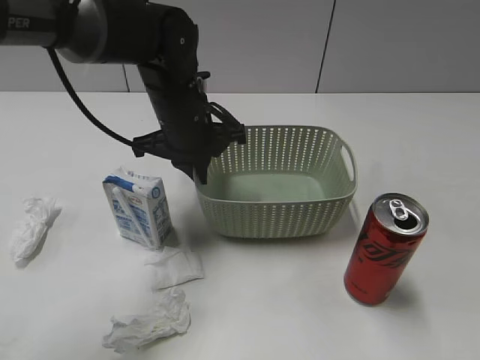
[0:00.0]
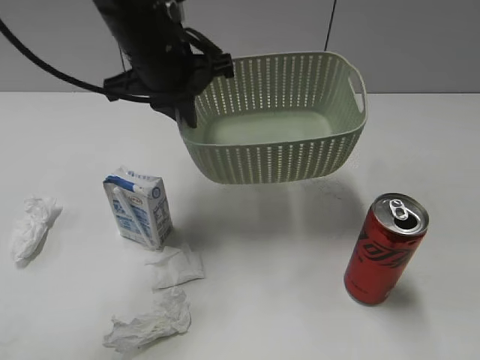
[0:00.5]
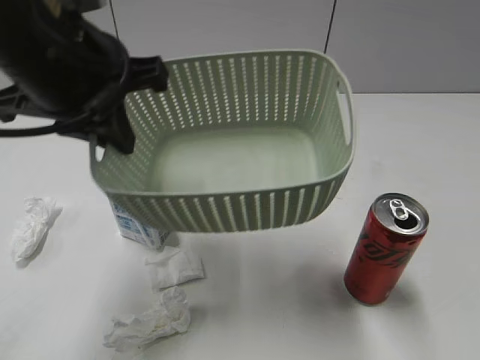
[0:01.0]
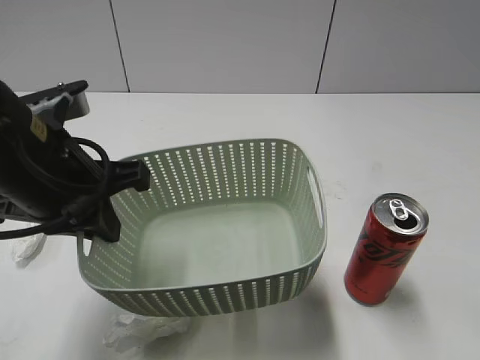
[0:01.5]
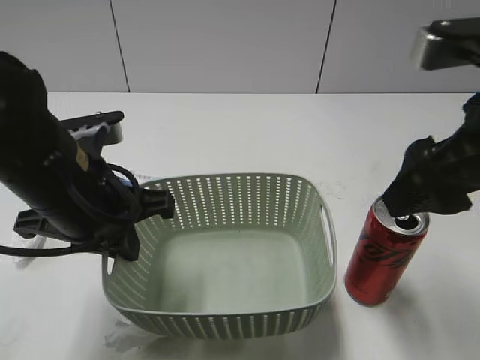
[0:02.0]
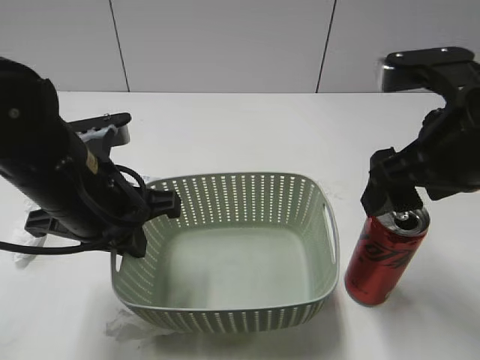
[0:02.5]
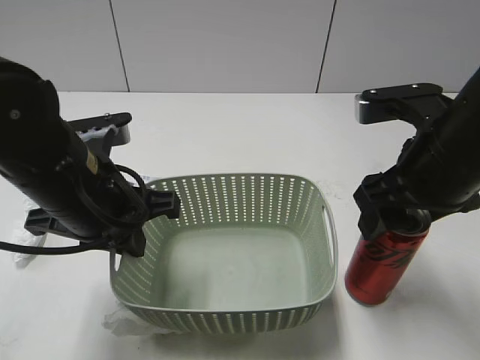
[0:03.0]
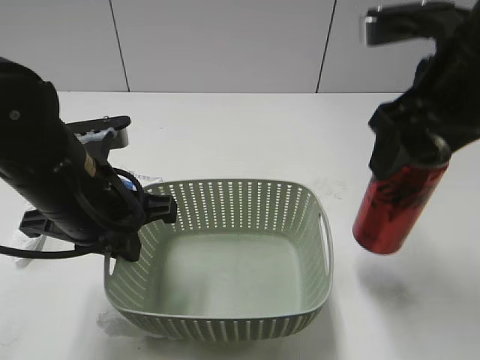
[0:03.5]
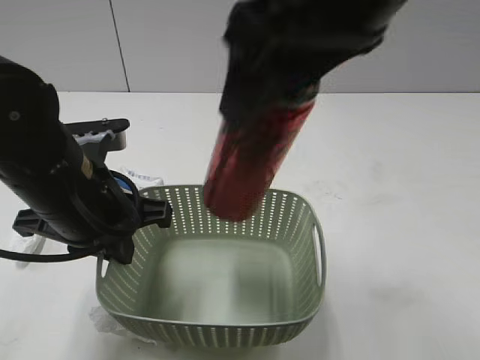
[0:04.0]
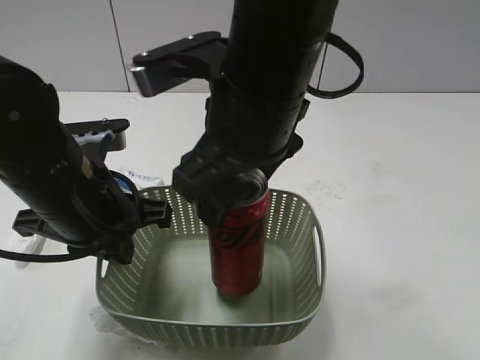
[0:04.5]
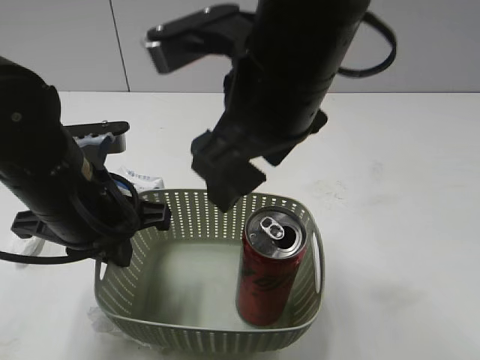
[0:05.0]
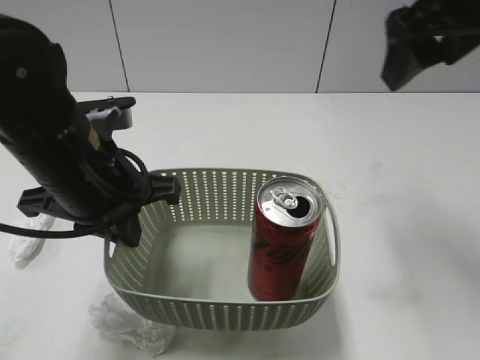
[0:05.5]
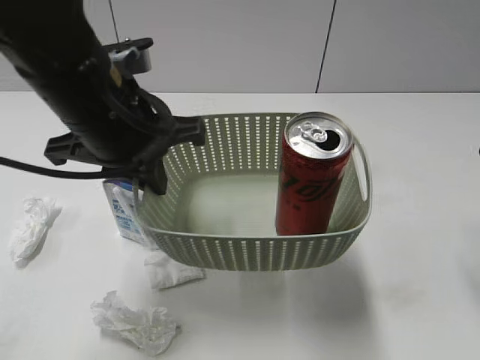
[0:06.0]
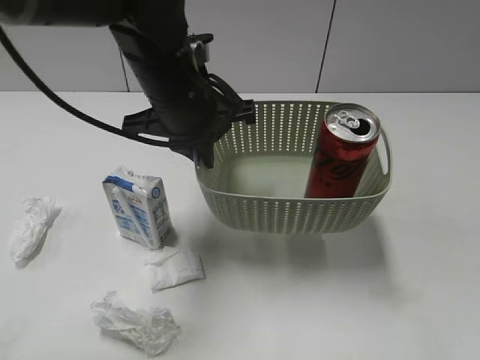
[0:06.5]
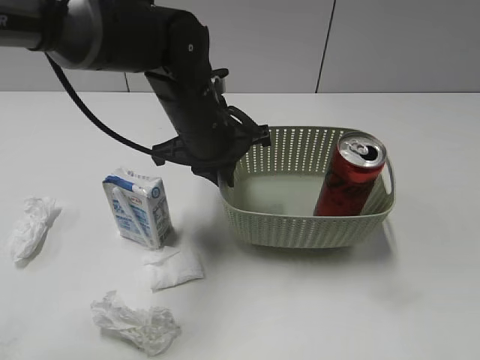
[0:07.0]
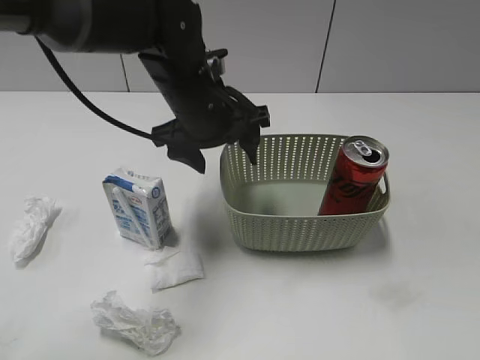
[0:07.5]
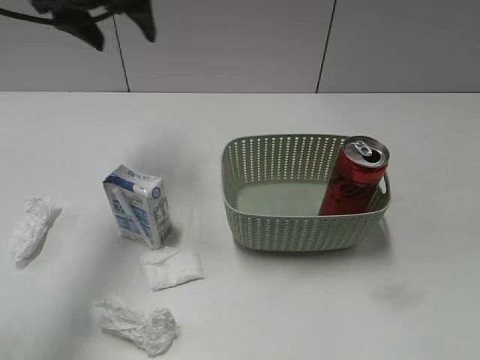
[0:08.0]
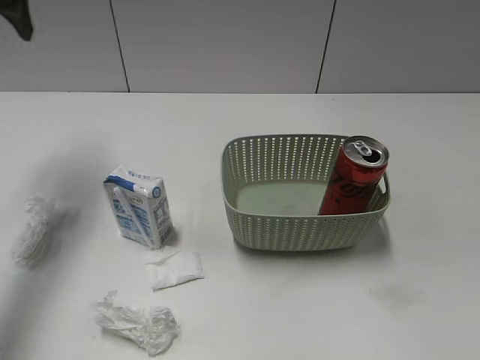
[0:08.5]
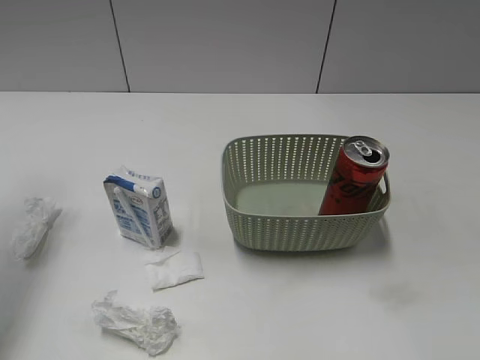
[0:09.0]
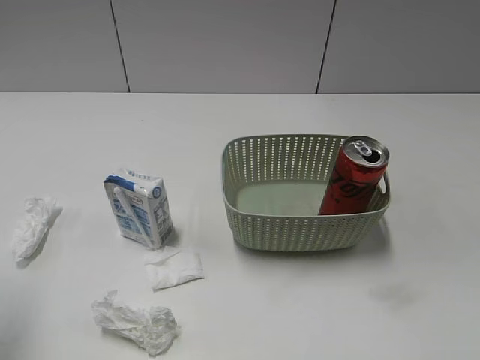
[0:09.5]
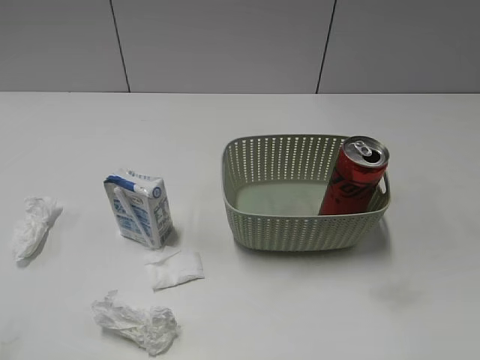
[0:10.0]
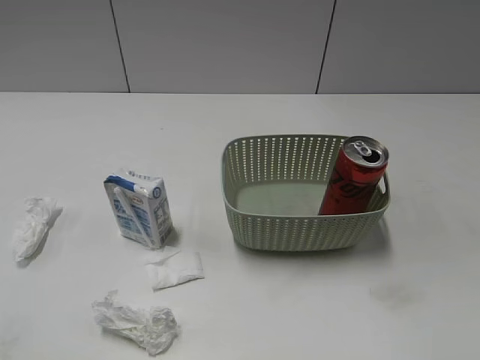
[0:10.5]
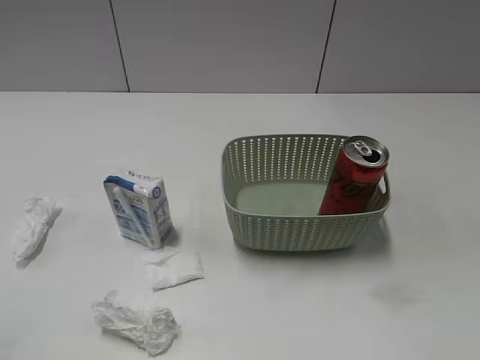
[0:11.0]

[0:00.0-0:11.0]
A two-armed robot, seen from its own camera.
Step, 0:02.0 to 0:03.0: Grasp the cola can with right gripper.
Step, 0:03.5 to 0:05.0: Place the cola can in the basket with right gripper.
Step, 0:05.5 to 0:07.5: Place the basket on the table with left gripper.
0:00.0 to 0:02.0: The left gripper travels backward and to the left by roughly 15 cm. The right gripper heads forward and to the left, covering approximately 20 cm, and opens.
0:02.0 to 0:03.5: The right gripper is displaced forward by about 5 cm, moves some 5 cm downward and comes back, and closes.
0:03.5 to 0:05.5: The right gripper goes to the left and returns, roughly 15 cm each way, and opens.
0:05.5 to 0:07.5: The left gripper goes some 15 cm forward and to the right, and opens up. Meanwhile the right gripper heads backward and to the right, covering about 30 cm.
0:07.5 to 0:09.0: The left gripper heads to the left and upward, covering about 30 cm.
0:09.0 to 0:11.0: The left gripper shifts about 30 cm backward.

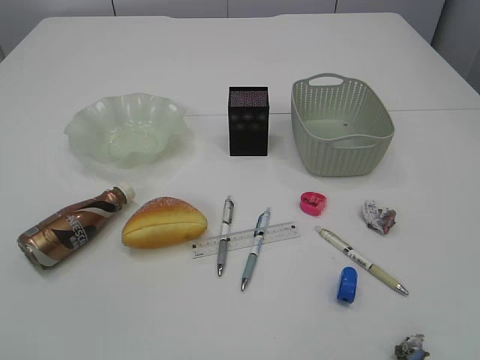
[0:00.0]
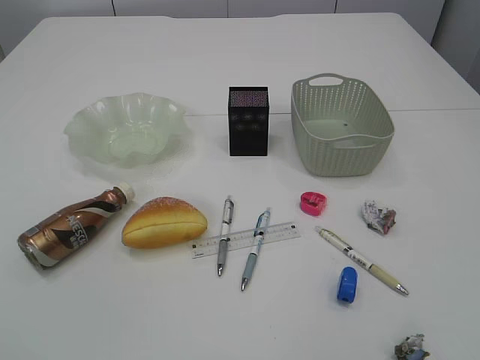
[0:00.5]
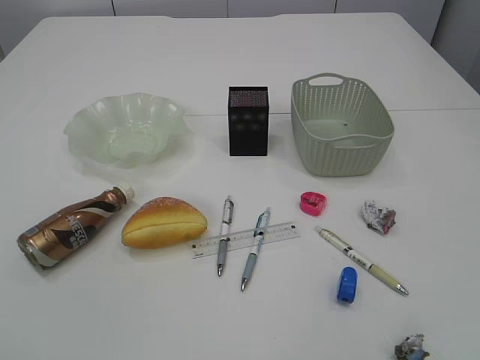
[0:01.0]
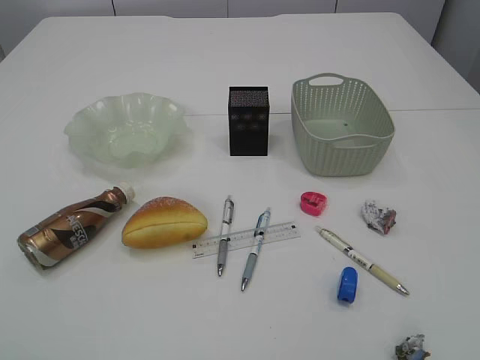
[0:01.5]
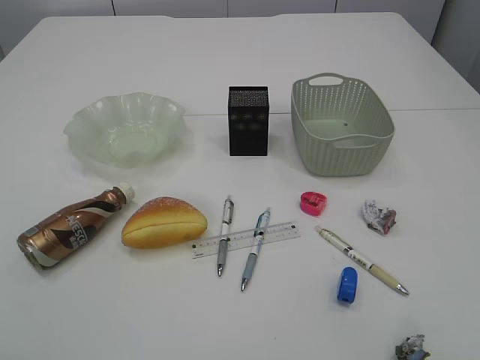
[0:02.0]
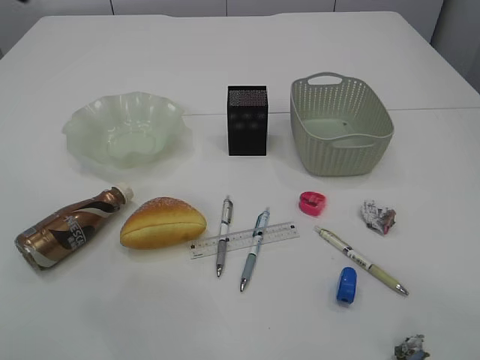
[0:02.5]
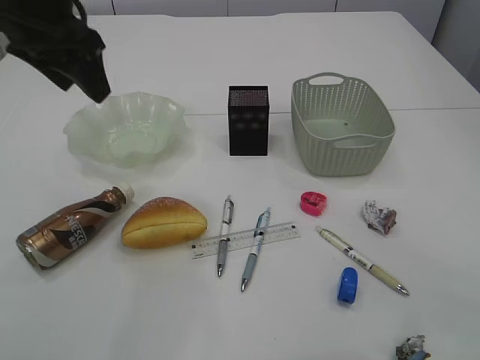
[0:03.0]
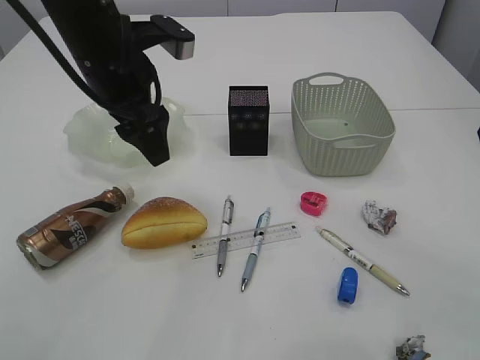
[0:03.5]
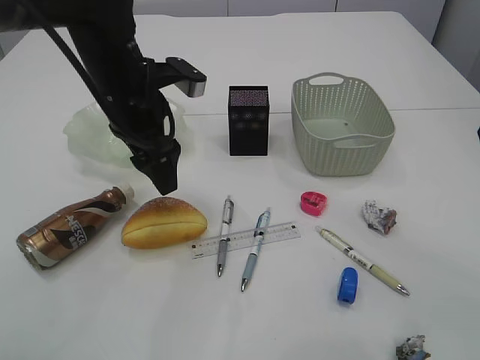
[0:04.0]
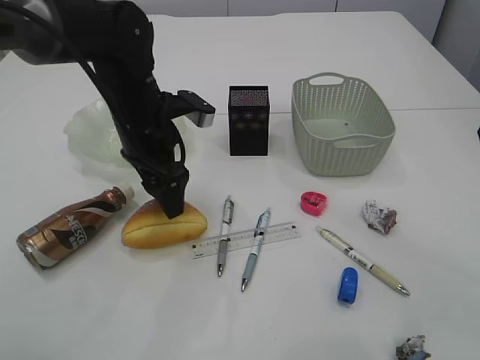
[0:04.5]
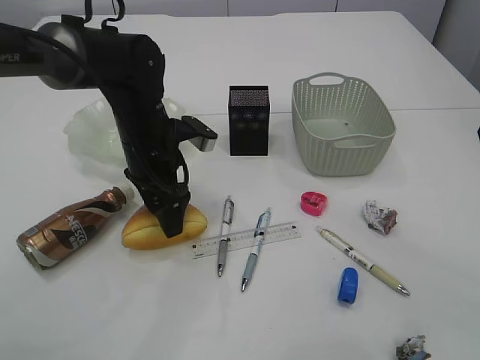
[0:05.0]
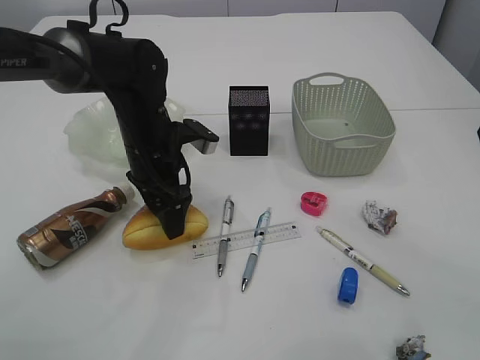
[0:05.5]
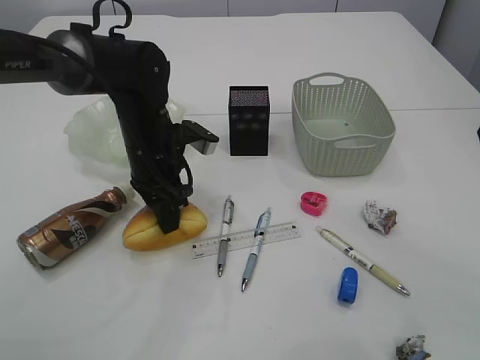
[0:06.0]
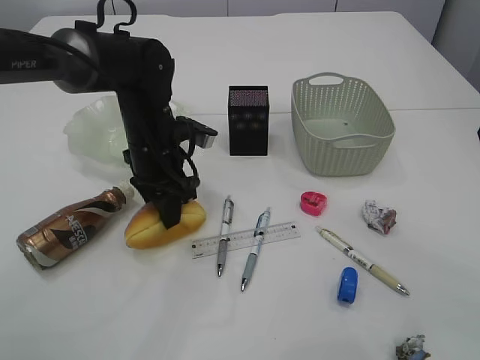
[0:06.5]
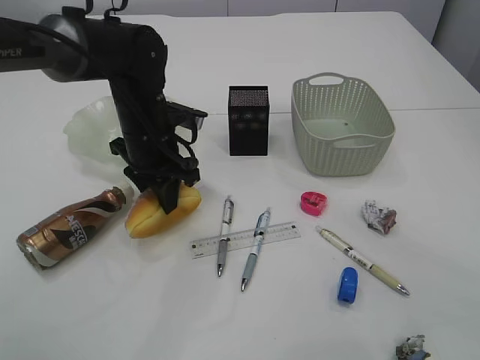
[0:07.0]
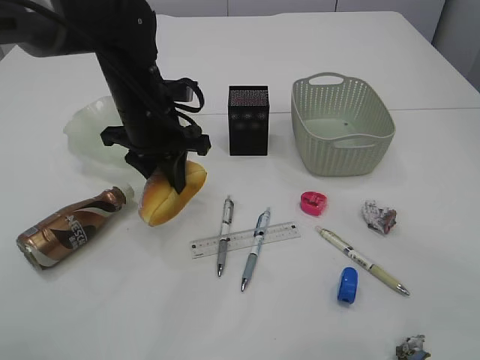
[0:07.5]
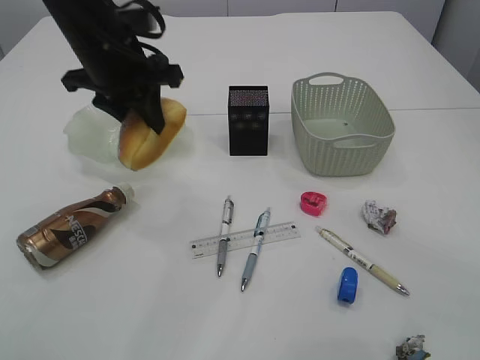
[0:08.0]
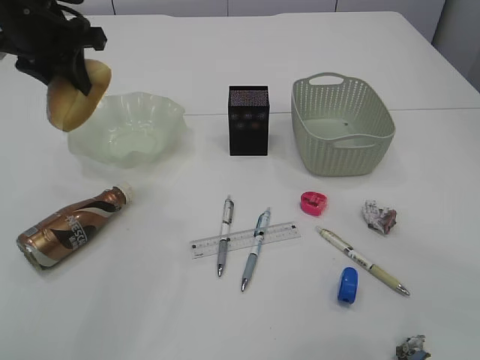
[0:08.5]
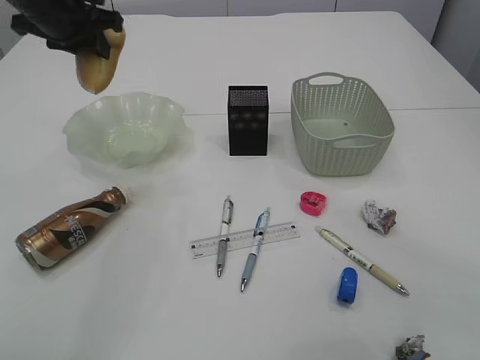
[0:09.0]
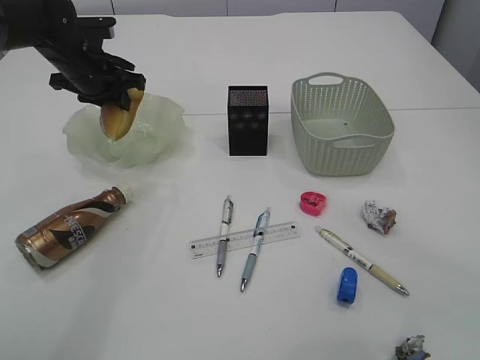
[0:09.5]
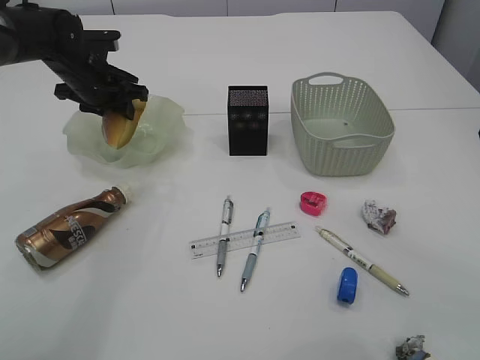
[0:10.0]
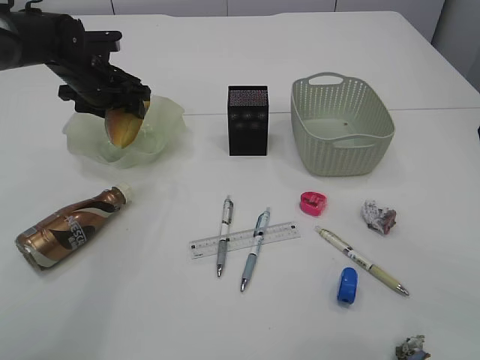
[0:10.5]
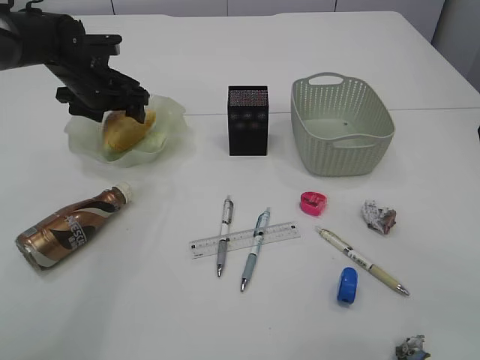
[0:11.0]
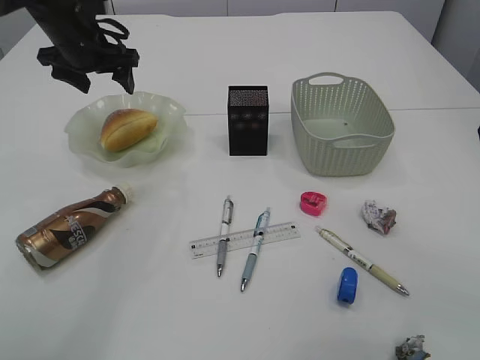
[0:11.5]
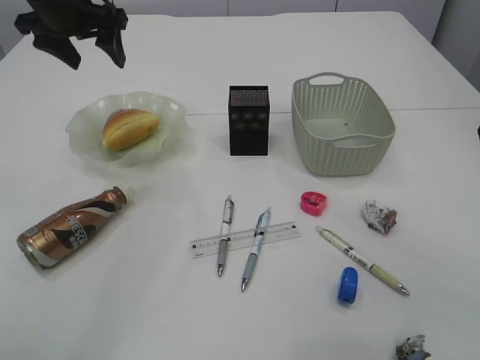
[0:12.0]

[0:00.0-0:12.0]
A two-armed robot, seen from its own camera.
Step, 0:08.0 to 0:11.5: place the bread in the plate.
0:02.0 to 0:04.0: The right gripper is displaced forward by approximately 20 cm. The left gripper goes roughly 35 cm forward, downward and to the right.
0:04.0 to 0:06.0: The left gripper heads downward, covering some 10 cm, and closes up.
0:06.0 to 0:08.0: The left gripper travels upward by roughly 15 cm.
0:08.0 to 0:10.0: The left gripper shifts approximately 15 cm forward, downward and to the left.
0:10.0 to 0:12.0: The left gripper goes approximately 15 cm upward, and opens up.

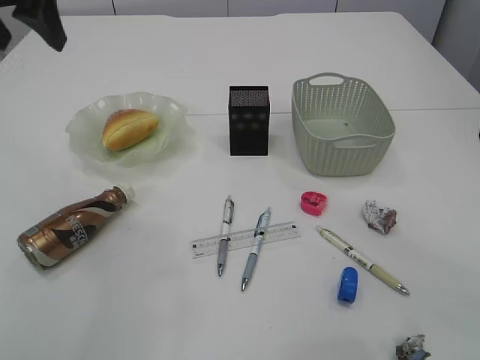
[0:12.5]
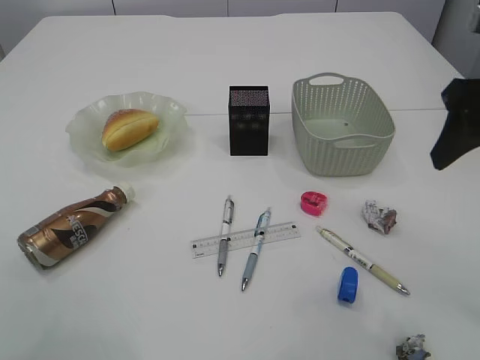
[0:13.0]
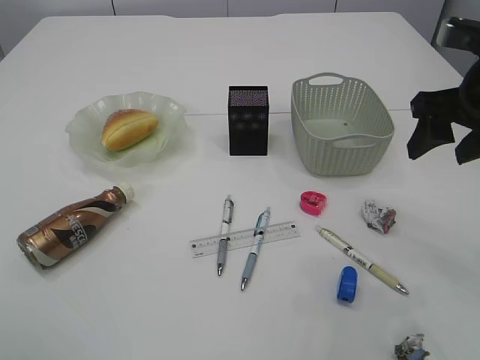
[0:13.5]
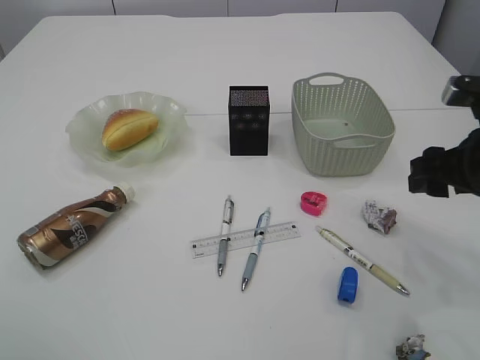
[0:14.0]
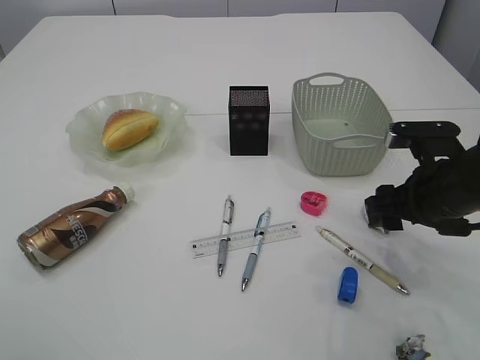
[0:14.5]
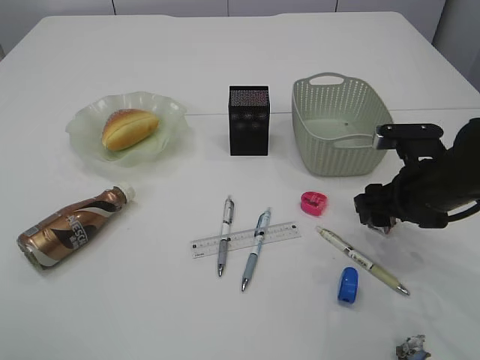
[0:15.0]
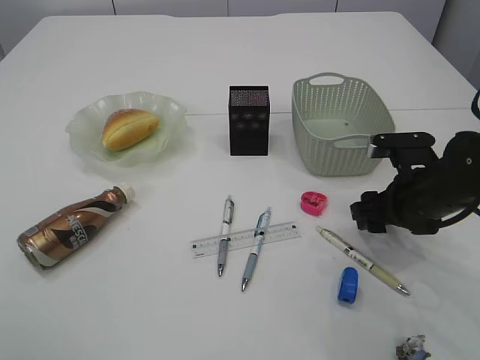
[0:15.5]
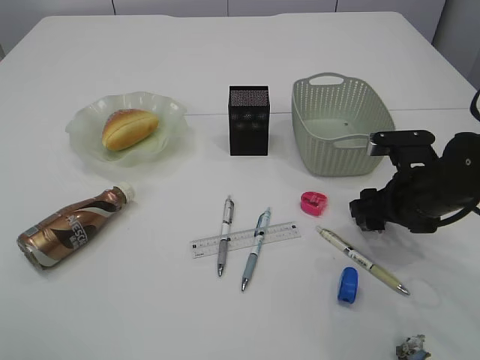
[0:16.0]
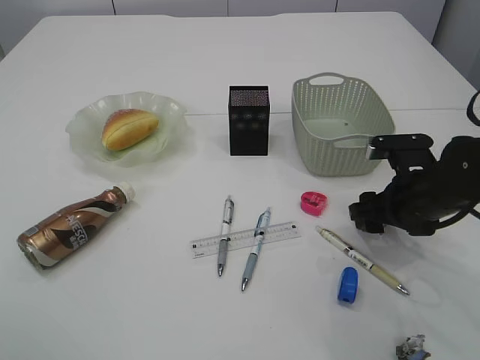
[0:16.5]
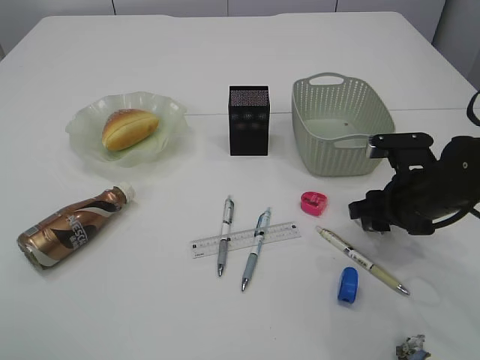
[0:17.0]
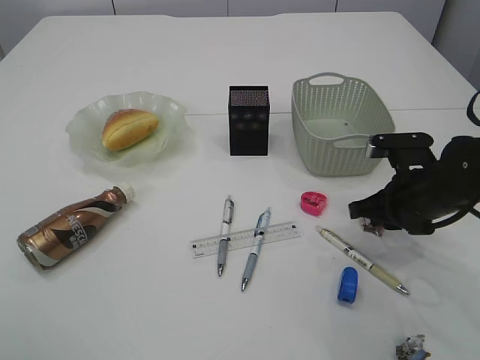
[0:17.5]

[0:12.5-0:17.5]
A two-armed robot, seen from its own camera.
0:12.5 to 0:15.0: The right gripper heads downward and forward, covering about 25 cm; the left gripper travels backward by about 20 cm.
0:15.0 to 0:17.5: The right gripper closes its fingers.
